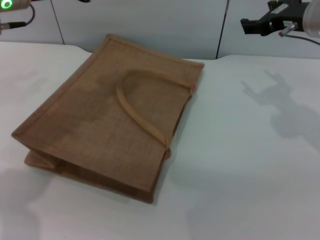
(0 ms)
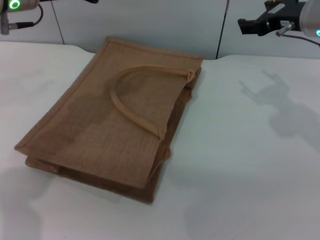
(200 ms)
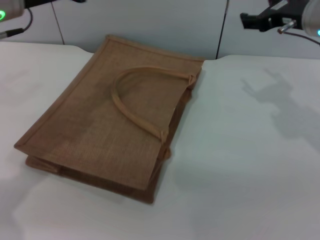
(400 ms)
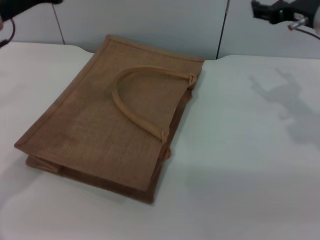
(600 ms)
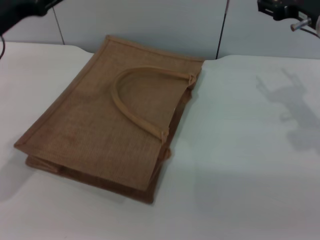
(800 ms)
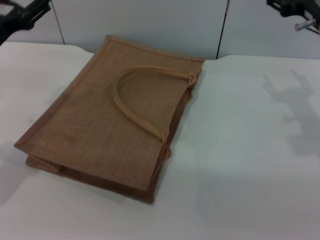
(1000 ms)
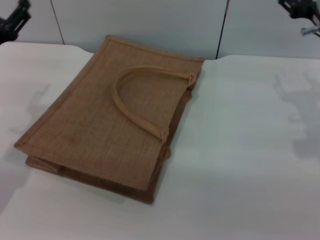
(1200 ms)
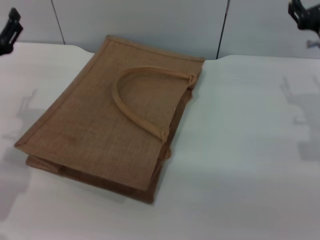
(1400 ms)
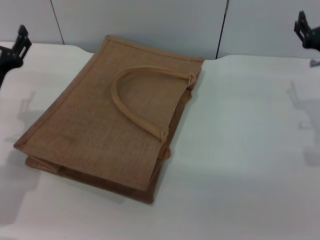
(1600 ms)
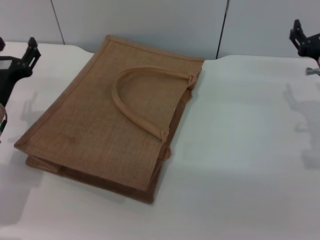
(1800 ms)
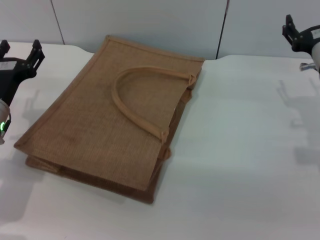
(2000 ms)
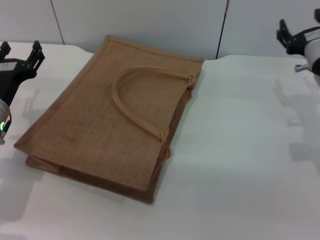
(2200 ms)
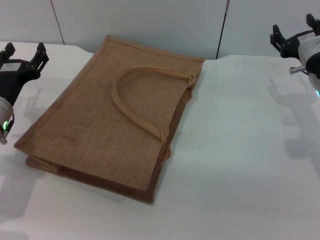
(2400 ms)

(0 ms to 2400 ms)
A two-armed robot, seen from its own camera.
Task of the whole recording: pick up the peach from the table and place it in the brown handbag.
0 ms - 1200 ms: The left gripper shifts approximately 15 cm downward, to the left and backward, and opens up. The right gripper shifts by some 5 cm.
1200 ms - 2400 ms: Both grippers travel together downward, about 5 cm.

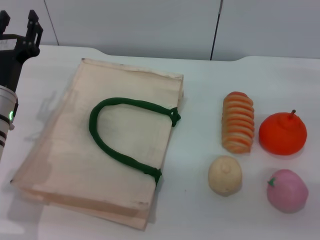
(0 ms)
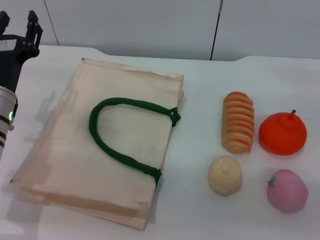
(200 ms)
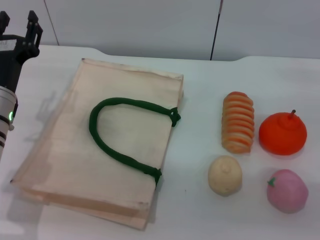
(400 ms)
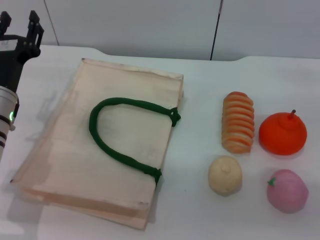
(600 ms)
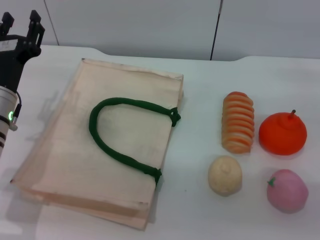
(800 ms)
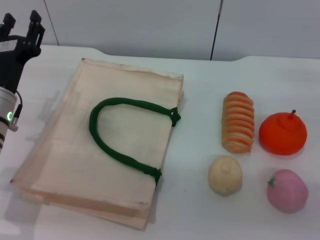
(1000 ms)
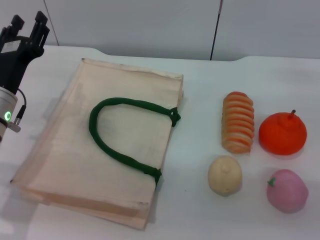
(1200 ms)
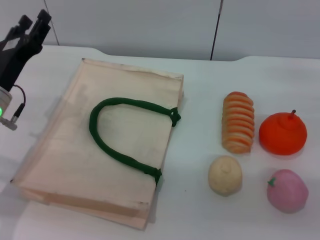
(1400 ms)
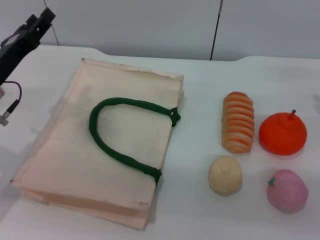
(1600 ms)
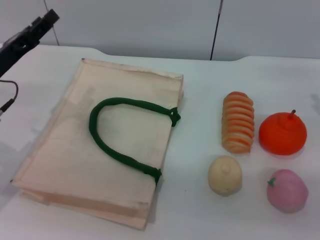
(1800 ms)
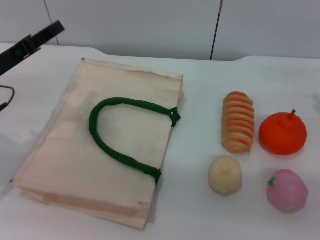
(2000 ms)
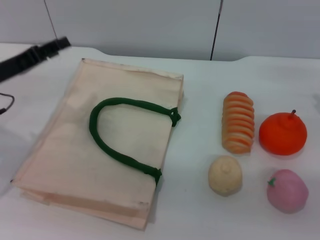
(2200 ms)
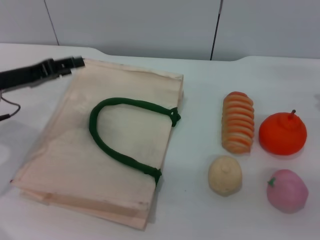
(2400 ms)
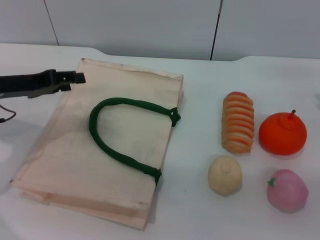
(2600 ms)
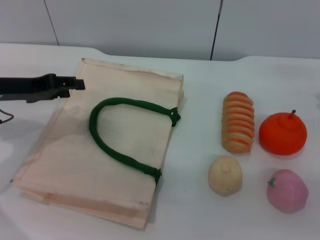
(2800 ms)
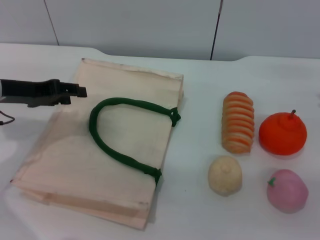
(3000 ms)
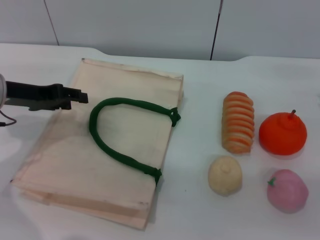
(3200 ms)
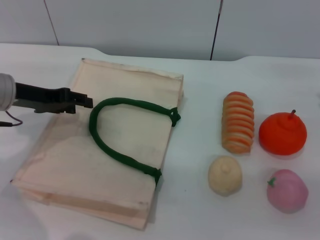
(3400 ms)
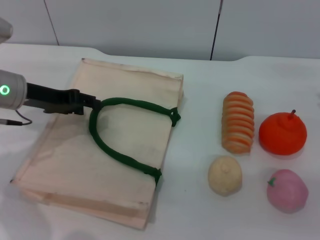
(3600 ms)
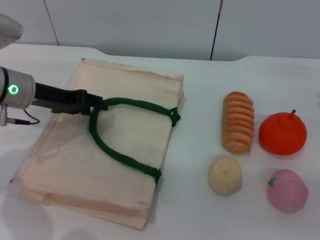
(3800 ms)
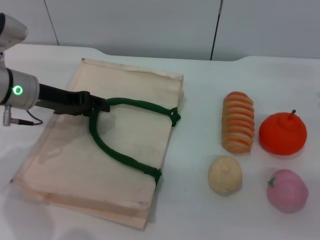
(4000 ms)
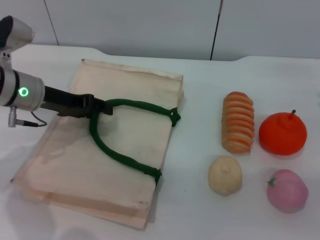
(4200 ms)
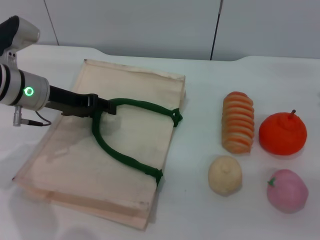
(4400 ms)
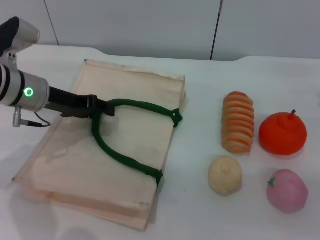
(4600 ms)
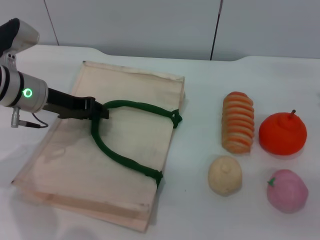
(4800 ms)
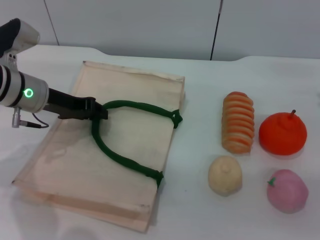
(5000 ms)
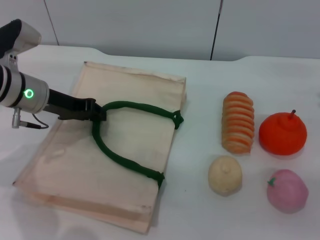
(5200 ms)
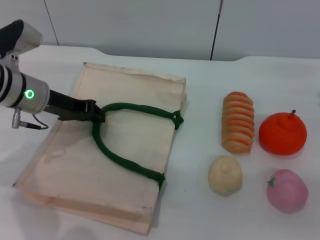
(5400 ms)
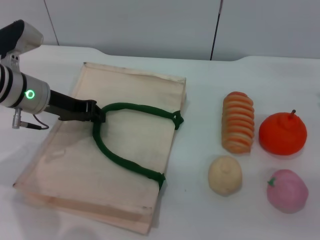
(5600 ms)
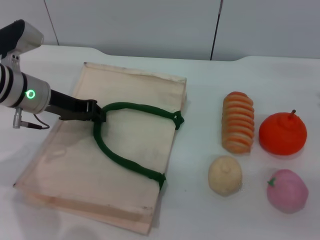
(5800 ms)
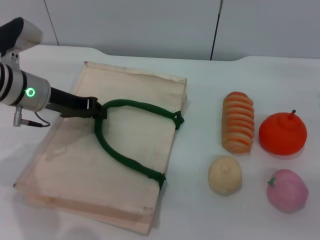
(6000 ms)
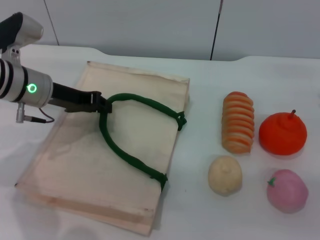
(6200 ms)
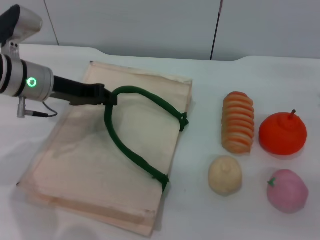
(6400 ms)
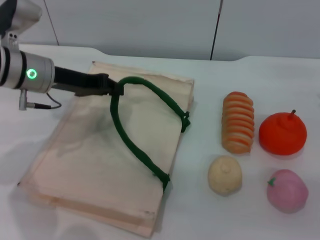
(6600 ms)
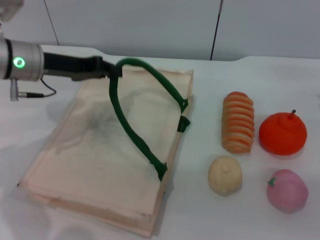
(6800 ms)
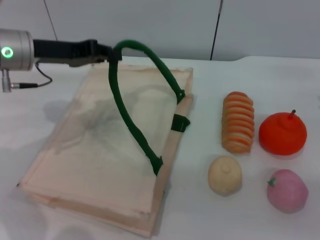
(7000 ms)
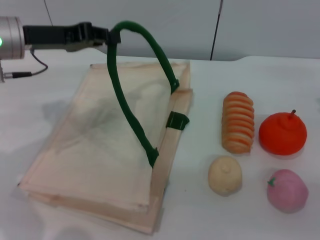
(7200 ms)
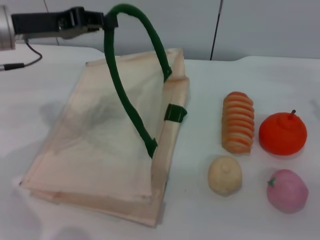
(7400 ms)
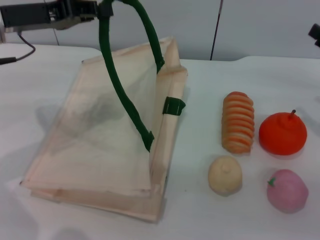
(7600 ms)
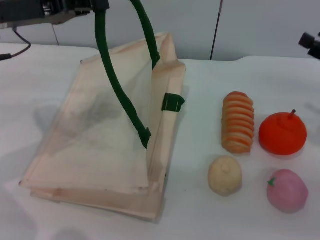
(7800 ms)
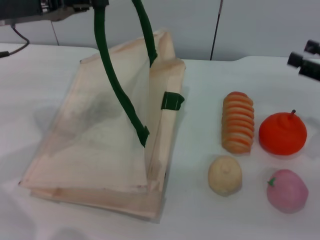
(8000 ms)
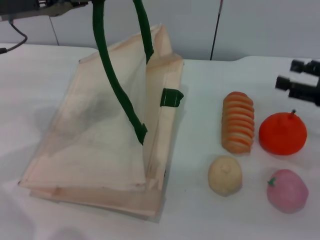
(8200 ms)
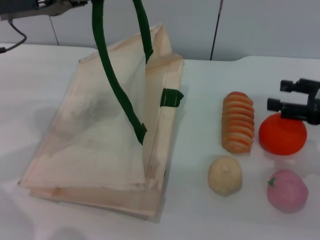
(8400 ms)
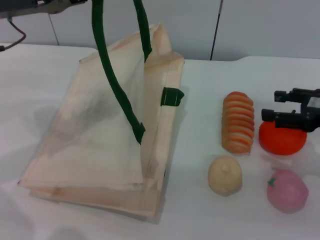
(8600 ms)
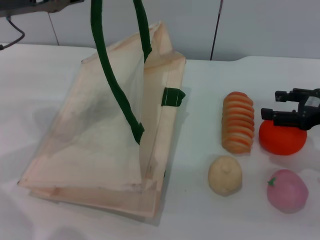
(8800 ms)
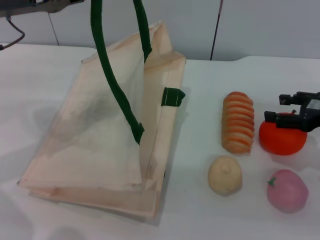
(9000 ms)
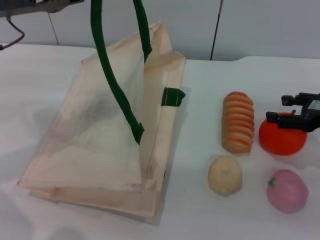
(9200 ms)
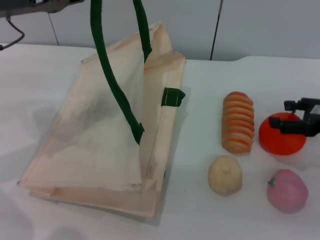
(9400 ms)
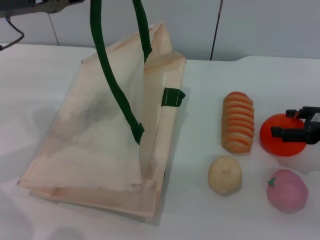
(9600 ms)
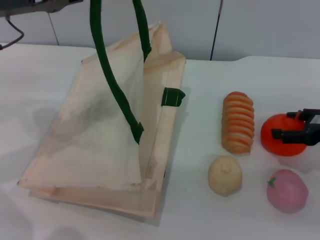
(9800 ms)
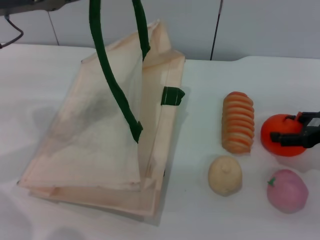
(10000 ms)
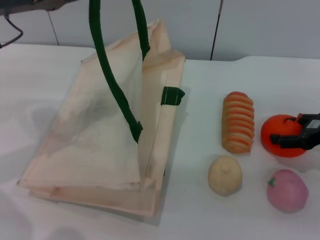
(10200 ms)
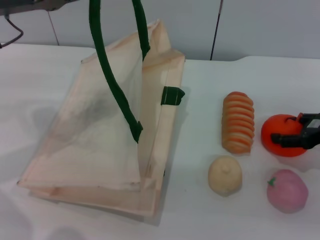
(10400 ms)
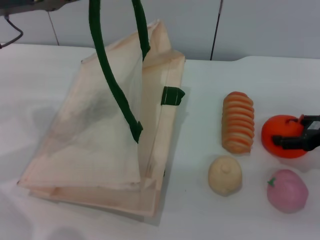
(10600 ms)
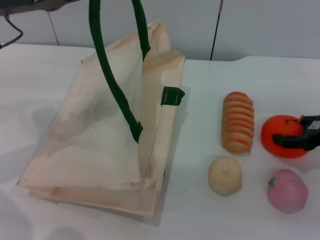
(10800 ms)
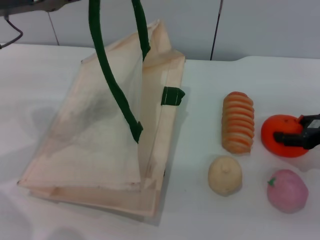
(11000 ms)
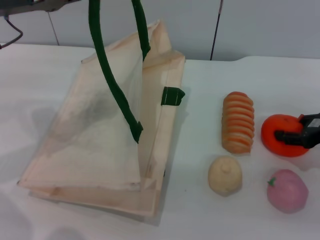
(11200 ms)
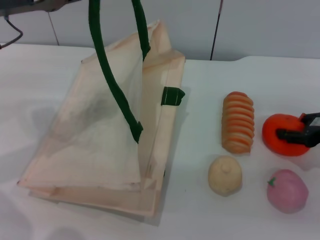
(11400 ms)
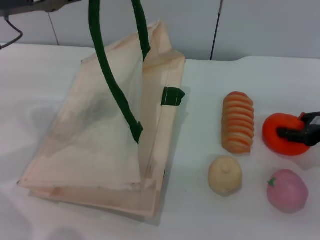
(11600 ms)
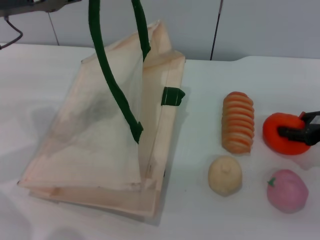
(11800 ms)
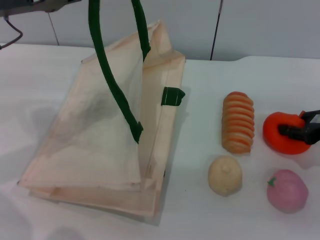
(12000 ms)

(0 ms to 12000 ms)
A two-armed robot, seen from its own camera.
Task of the whole recording: pick up the orange from the table and place it in the white handbag.
Step, 0 ms - 7400 ms: Lift the woven bag with the left gripper to open it.
1600 ms - 3000 ms: The left gripper ends up about 5 cm from where it was.
3000 ms - 4400 ms: The left gripper shifts some 5 cm to the right.
4400 ms - 6000 ms: The left gripper closes.
6000 ms - 7600 ms: The left gripper is displaced upward by some 10 cm.
9000 ms - 10400 ms: There are only small adjustments of the grippers.
10400 ms - 12000 ms: The right gripper closes.

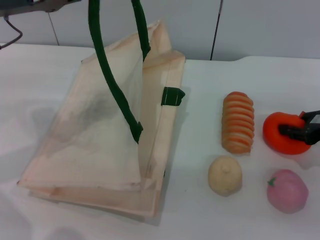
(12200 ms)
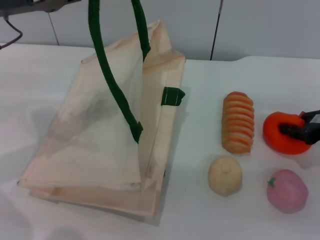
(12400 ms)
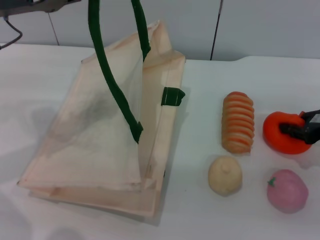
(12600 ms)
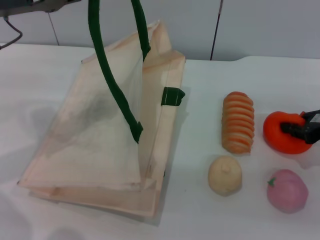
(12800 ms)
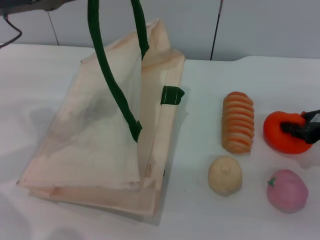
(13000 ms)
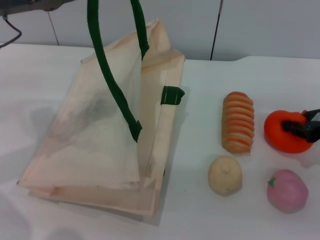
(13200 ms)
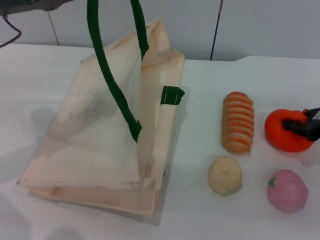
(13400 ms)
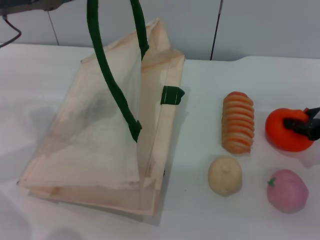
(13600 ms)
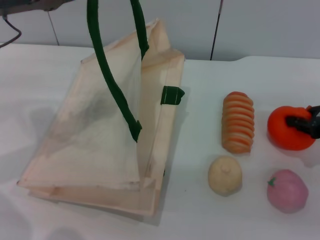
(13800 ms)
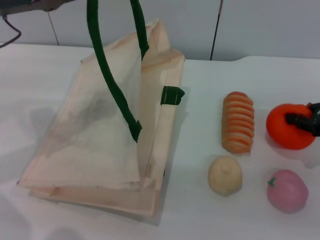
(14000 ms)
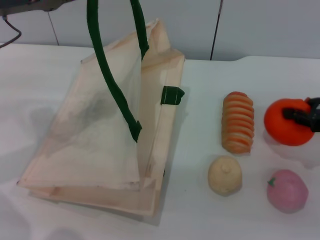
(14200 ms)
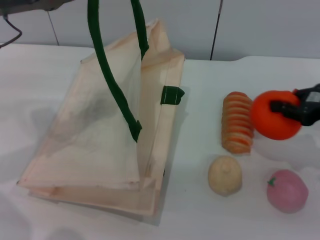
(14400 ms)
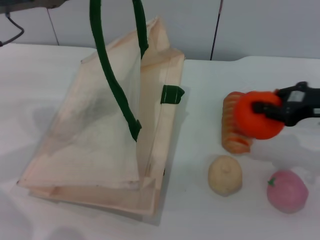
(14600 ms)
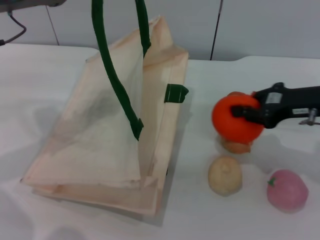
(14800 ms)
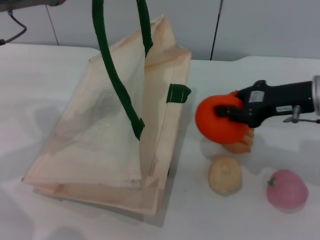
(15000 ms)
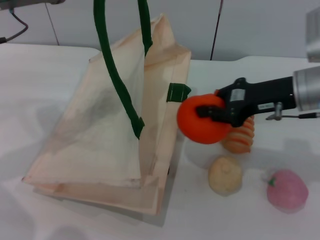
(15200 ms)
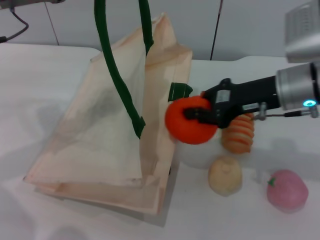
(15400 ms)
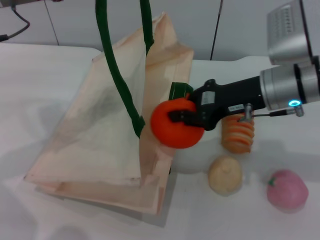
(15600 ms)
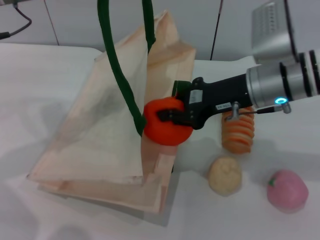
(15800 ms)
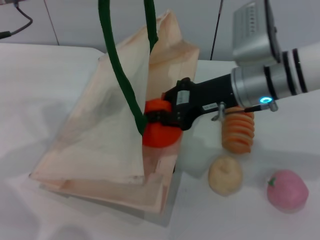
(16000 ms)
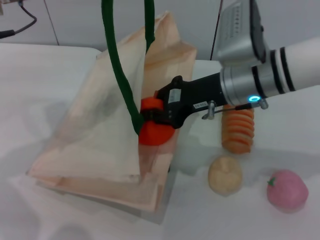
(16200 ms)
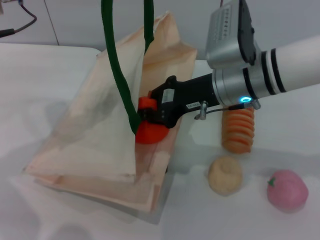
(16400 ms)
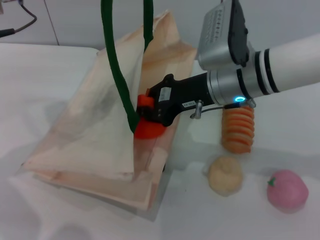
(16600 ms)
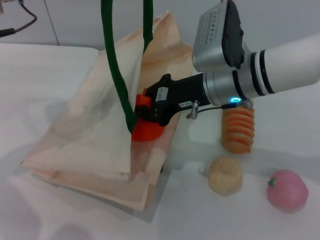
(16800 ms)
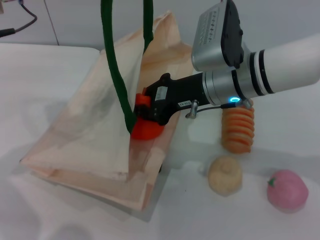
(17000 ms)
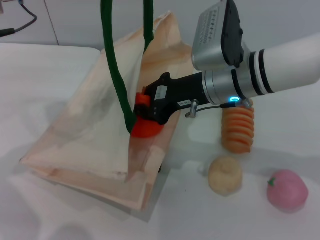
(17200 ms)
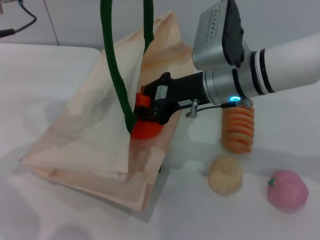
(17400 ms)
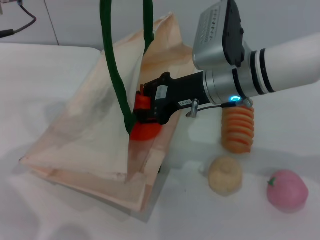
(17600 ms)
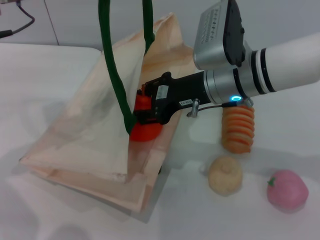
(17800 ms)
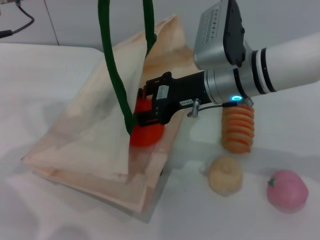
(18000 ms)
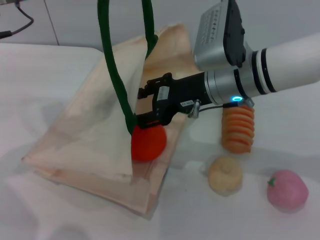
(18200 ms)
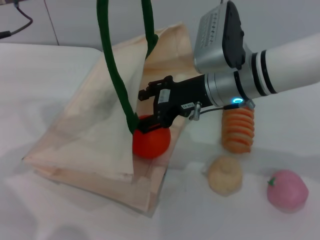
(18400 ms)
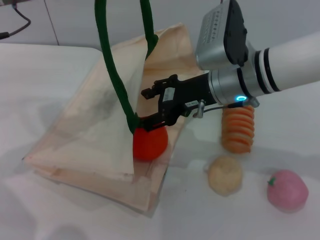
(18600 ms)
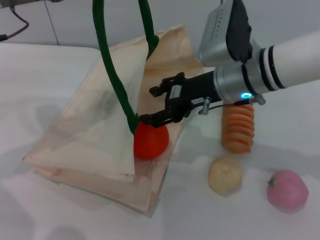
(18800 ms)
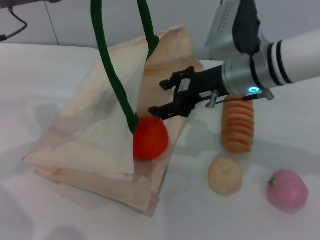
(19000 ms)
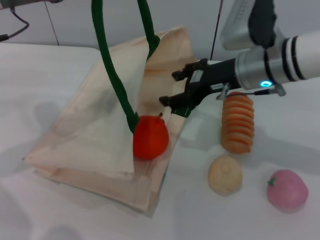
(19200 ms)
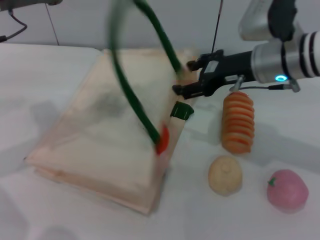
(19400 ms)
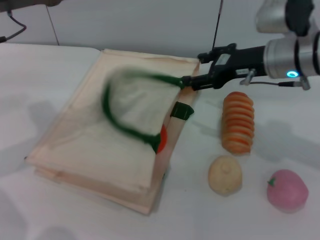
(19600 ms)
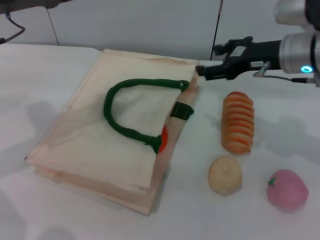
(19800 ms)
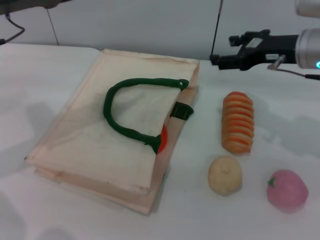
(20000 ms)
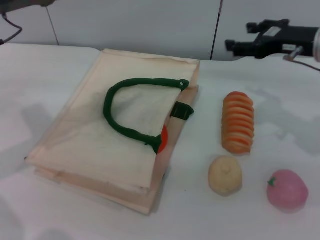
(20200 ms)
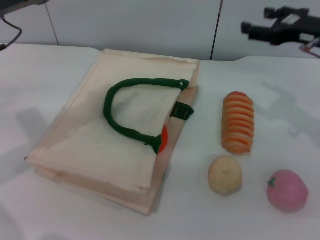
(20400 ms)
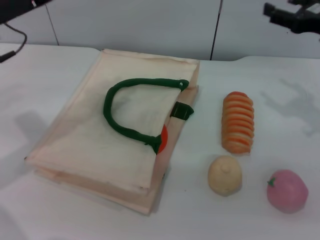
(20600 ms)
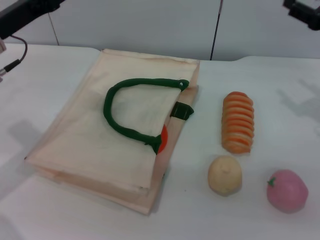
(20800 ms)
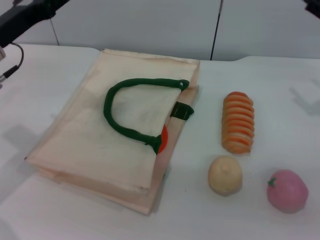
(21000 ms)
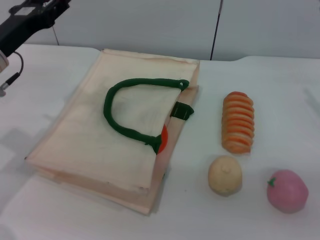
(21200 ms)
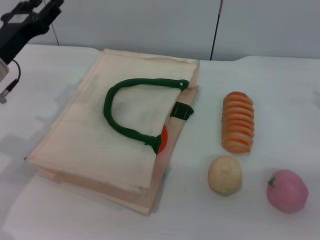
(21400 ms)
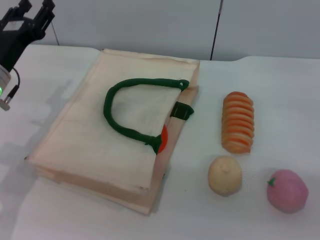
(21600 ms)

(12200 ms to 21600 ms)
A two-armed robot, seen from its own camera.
Task of the whole recording: pick up the orange from the table and place it in the white handbag.
Step, 12200 ms - 14200 ms: Pick up the orange with the right gripper.
Step, 14400 ms - 19000 ms: Place the orange into the woven bag with the right gripper.
Step, 19200 ms - 19600 ms: Lower the woven bag with the left gripper to close it.
12200 ms - 13800 ms: Both grippers stay about where they are.
13800 ms - 15400 ms: The right gripper heads to the left, covering approximately 15 cm.
15400 ms - 17000 ms: The right gripper goes approximately 10 cm to the left.
17000 ms - 18400 ms: The right gripper opens.
18400 ms - 20000 ms: The right gripper travels to the right by some 10 cm. The left gripper opens up.
20000 ms - 21600 ms: The right gripper heads to the right, downward and backward, covering some 15 cm. The left gripper goes about 15 cm downward.
